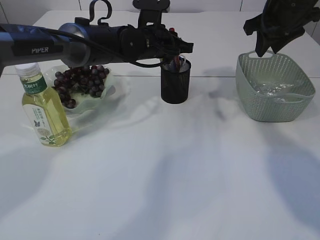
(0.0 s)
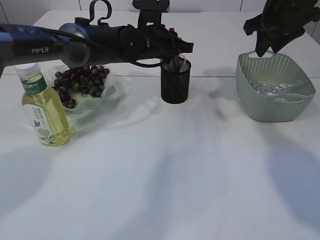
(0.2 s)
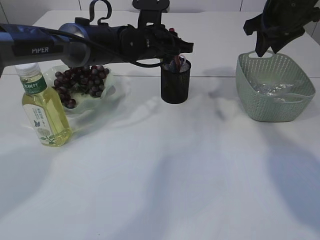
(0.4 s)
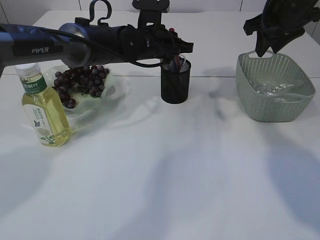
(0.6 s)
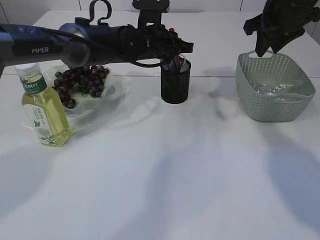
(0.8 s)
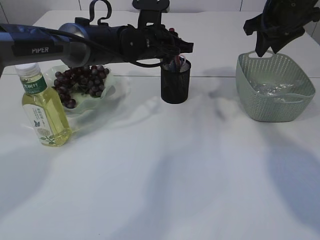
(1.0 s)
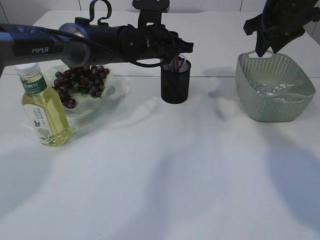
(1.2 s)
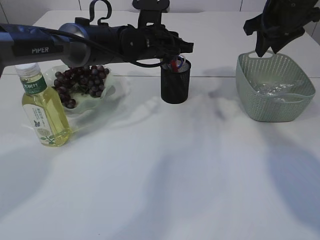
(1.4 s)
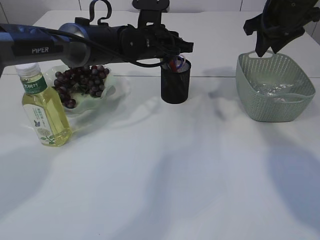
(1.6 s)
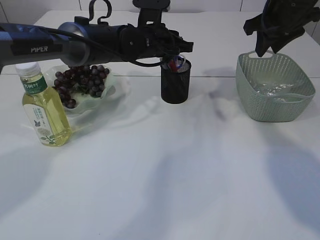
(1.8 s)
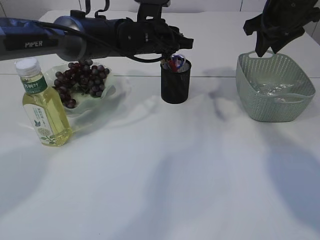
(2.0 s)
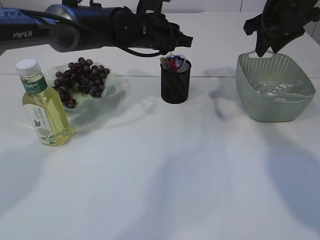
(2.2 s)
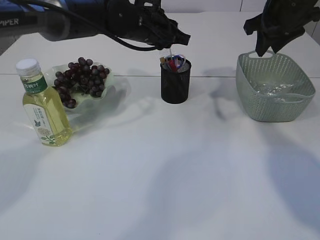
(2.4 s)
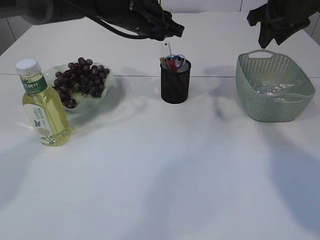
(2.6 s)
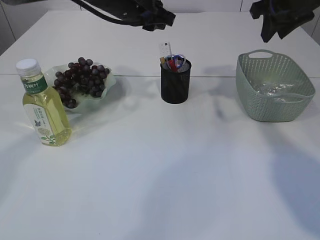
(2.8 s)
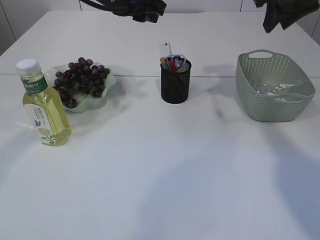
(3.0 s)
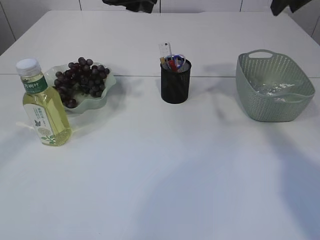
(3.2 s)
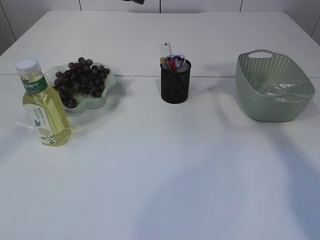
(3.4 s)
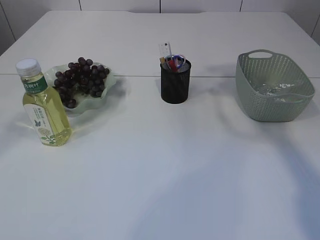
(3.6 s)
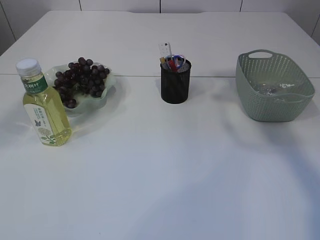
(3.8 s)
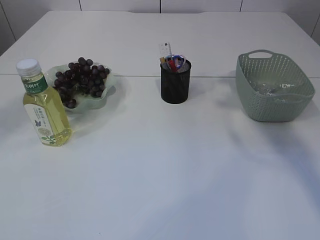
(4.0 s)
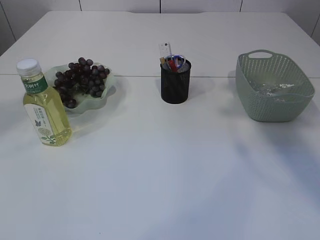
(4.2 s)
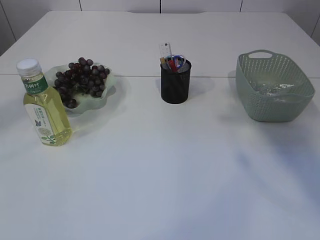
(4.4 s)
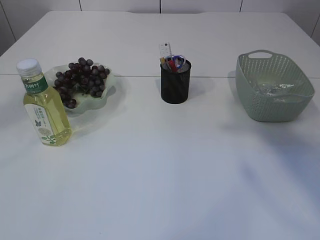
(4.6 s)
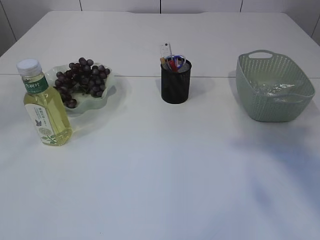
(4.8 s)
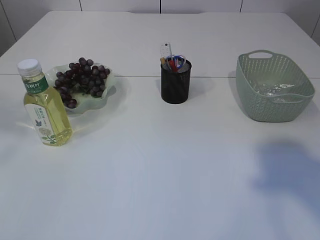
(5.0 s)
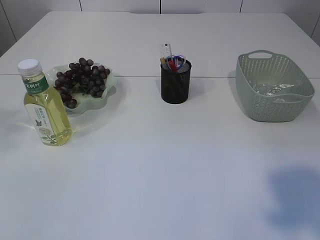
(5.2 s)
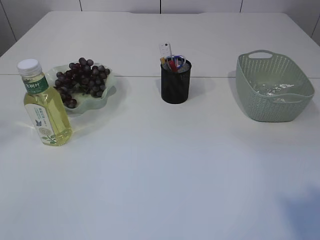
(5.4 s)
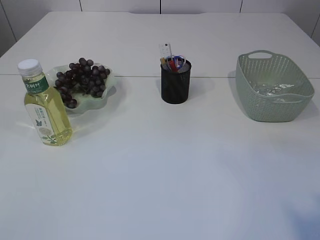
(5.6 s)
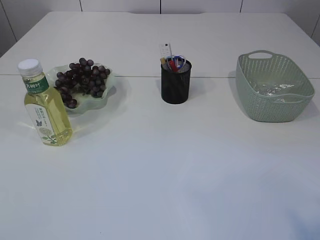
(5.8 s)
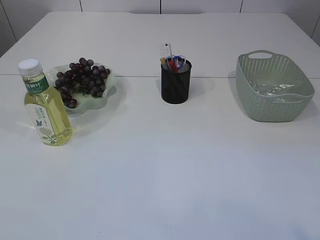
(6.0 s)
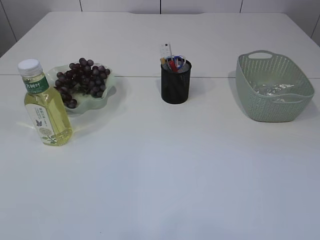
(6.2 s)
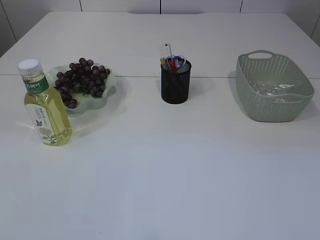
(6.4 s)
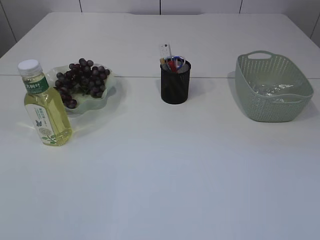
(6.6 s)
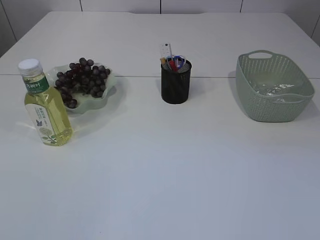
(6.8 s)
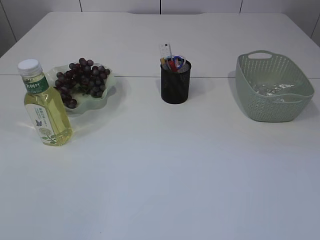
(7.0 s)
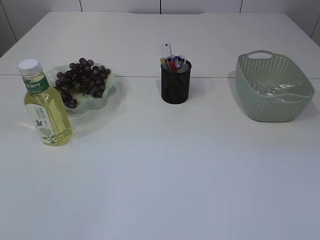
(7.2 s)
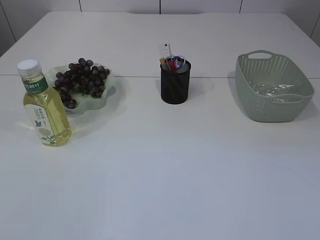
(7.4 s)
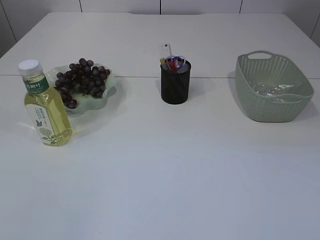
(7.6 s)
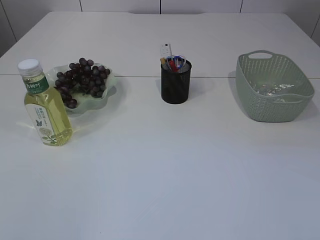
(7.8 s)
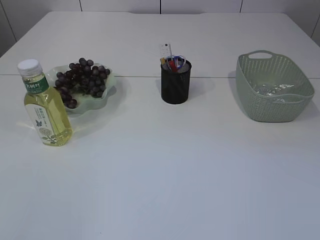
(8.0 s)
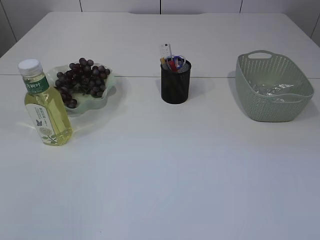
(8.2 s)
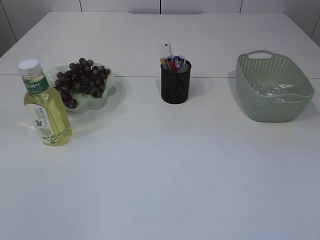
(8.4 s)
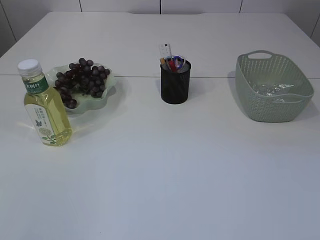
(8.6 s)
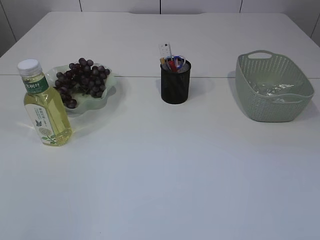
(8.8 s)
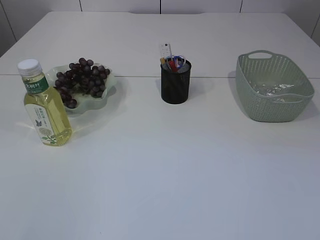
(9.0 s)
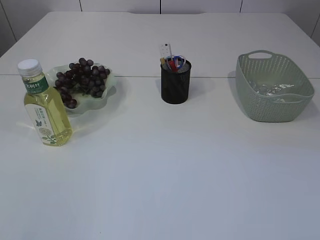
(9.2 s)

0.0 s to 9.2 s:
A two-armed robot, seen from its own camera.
Step, 0.0 to 2.4 s: place the red glue into the pen holder.
0.0 to 1.6 s: Both grippers stay about where they are.
1.6 to 3.0 s: The right gripper ends up about 5 cm from where it was. Meanwhile the left gripper heads upward, covering about 10 cm.
3.0 to 4.6 s: The left gripper heads upward, backward and to the left, covering roughly 25 cm. The right gripper heads backward and upward, covering roughly 30 cm.
4.6 to 6.2 s: The right gripper is displaced backward and downward by about 25 cm. Meanwhile the left gripper travels backward and to the left by about 30 cm.

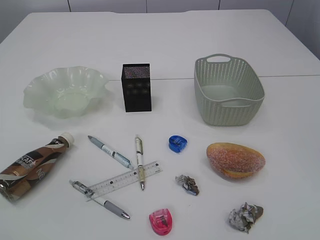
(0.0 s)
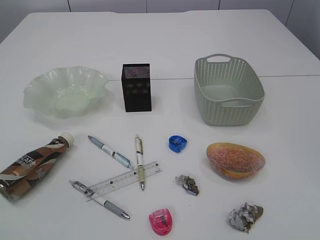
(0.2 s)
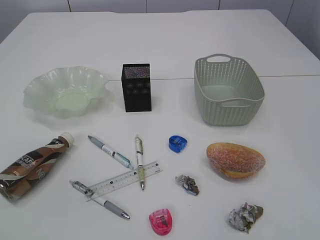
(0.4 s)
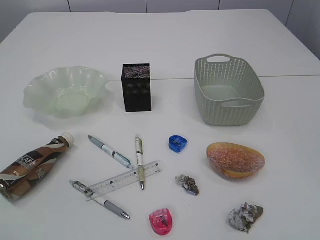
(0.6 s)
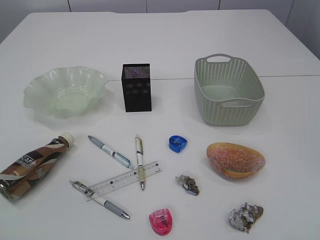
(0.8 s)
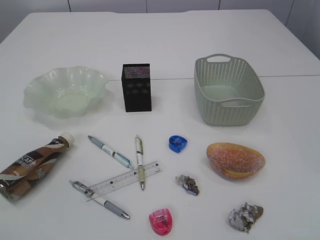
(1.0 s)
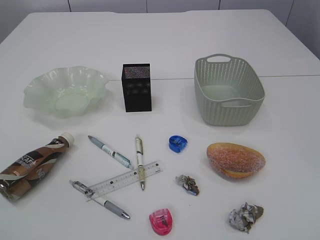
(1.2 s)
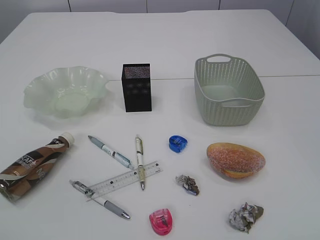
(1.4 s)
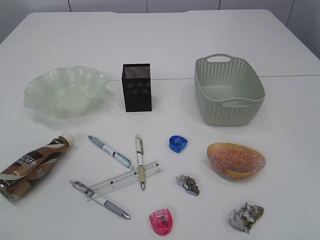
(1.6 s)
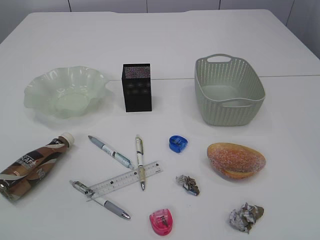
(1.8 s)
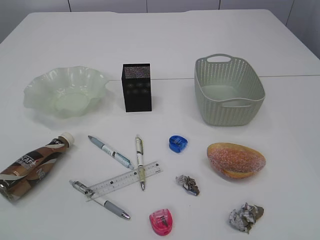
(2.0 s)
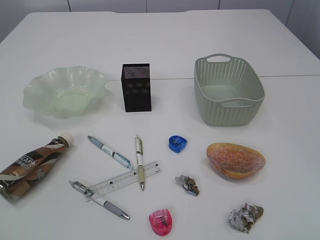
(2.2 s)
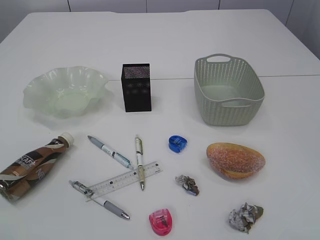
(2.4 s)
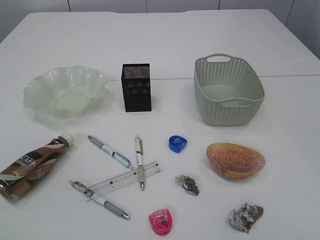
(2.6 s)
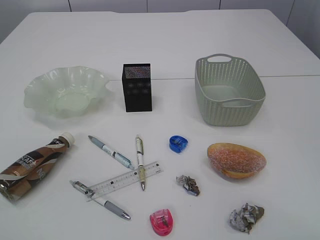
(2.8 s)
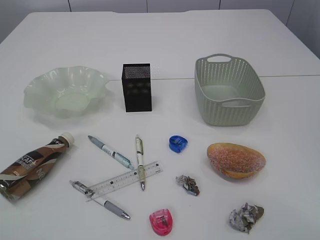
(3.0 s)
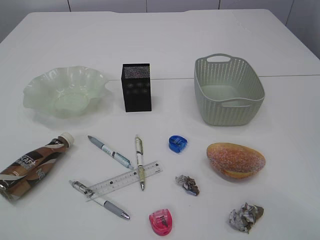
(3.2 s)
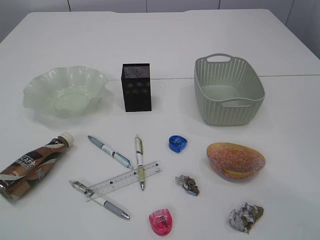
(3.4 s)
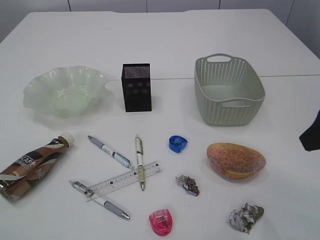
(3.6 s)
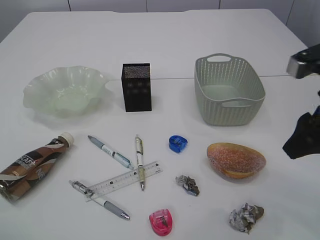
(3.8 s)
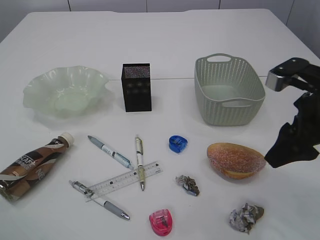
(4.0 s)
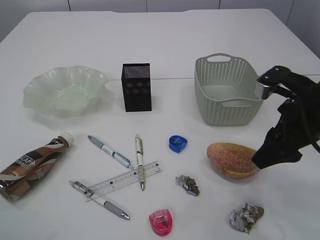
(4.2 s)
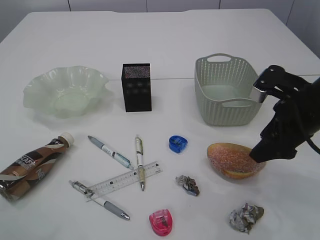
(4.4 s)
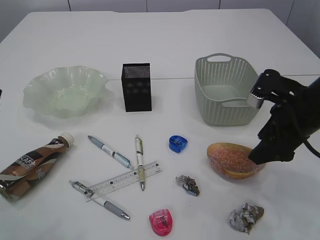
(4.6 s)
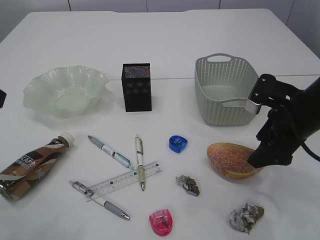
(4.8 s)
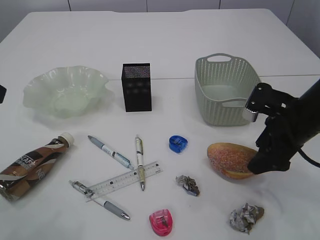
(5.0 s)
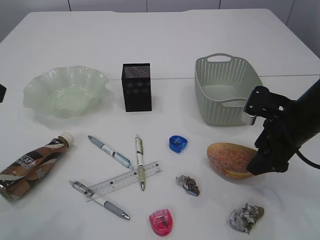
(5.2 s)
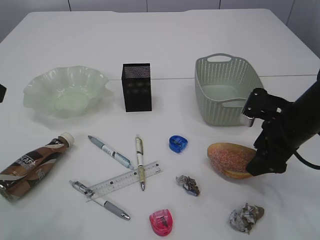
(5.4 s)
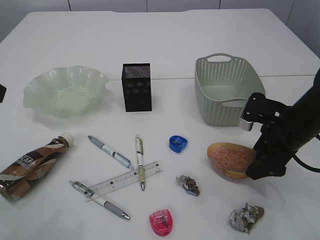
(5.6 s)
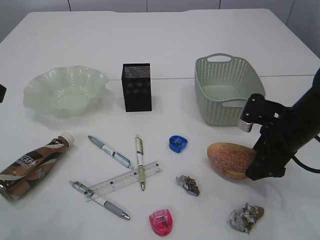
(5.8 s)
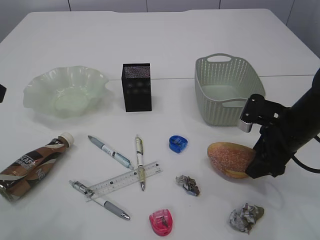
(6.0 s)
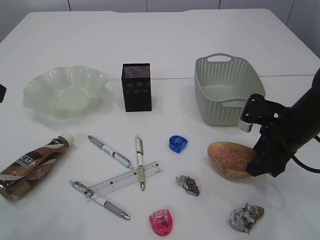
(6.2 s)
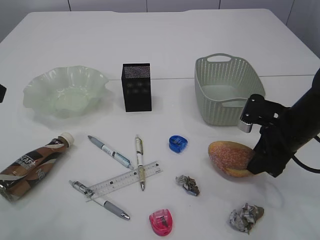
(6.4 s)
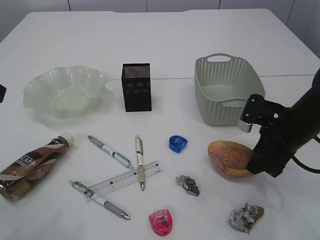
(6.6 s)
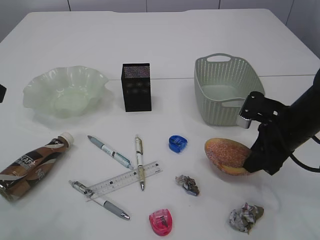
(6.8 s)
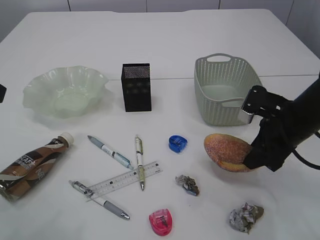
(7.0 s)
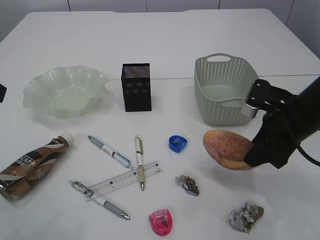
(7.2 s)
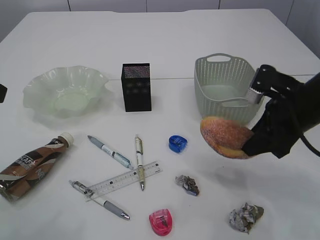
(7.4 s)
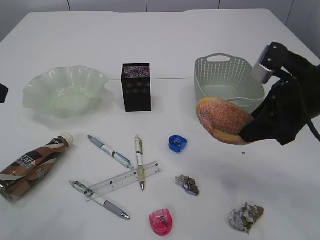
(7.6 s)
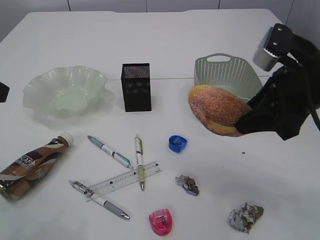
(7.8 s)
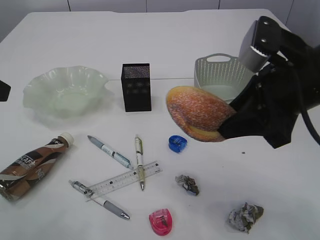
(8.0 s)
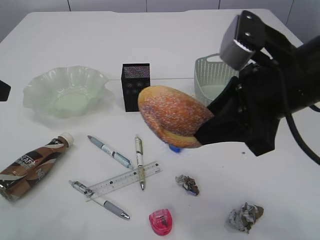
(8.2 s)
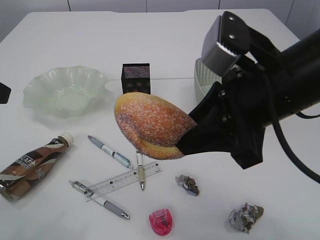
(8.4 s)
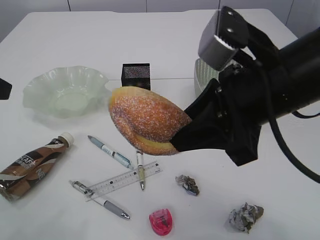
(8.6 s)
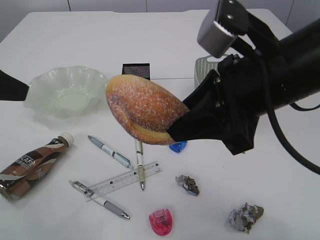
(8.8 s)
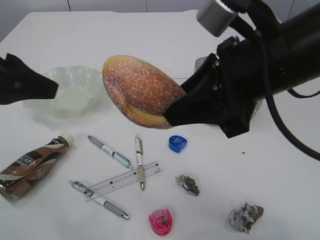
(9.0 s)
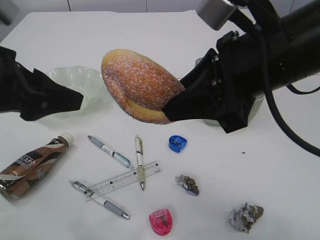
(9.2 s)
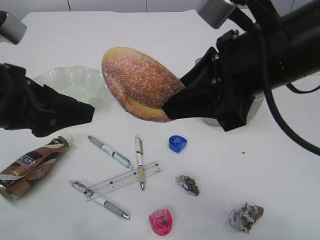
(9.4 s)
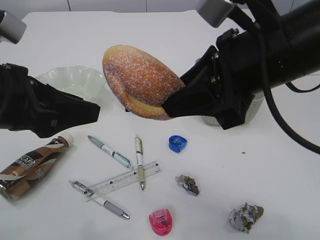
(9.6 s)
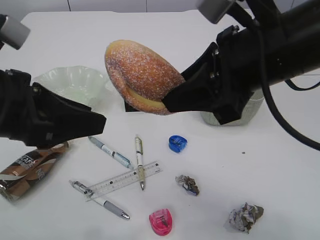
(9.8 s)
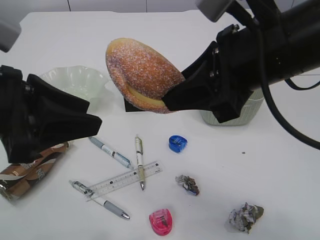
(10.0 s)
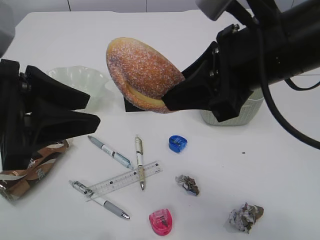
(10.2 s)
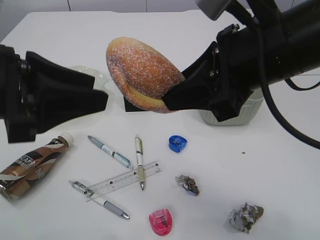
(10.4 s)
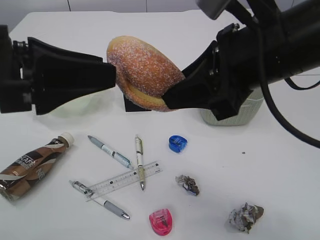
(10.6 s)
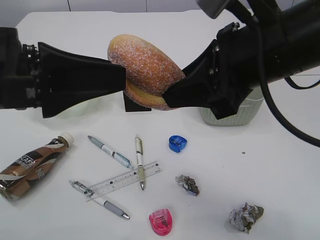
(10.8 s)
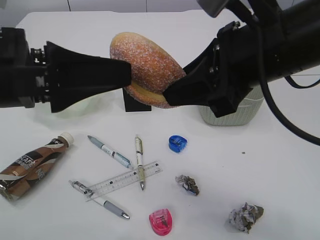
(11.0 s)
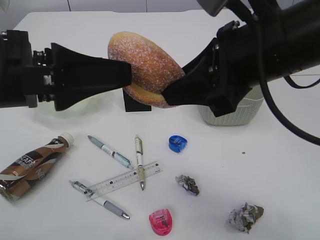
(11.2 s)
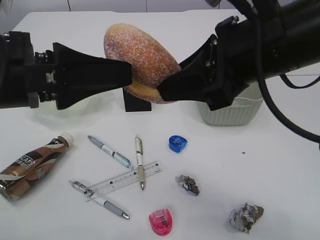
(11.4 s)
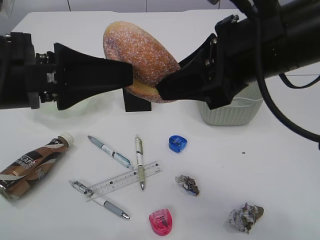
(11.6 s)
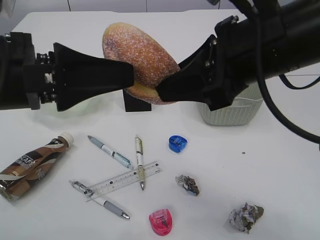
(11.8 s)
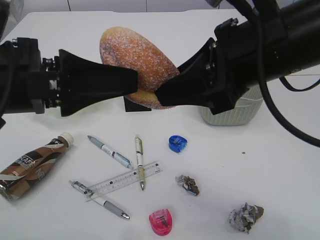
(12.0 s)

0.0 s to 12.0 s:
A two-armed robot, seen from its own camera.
3.0 to 4.4 s: The right gripper moves forward and downward, some 25 cm.
4.4 to 6.0 s: The right gripper shifts some 5 cm downward.
6.0 to 7.6 s: The right gripper moves upward, approximately 10 cm, and closes its fingers.
7.6 to 9.0 s: The right gripper travels to the left, upward and backward by approximately 15 cm.
9.0 to 10.4 s: The left gripper shifts by approximately 5 cm.
10.4 to 12.0 s: The left gripper opens.

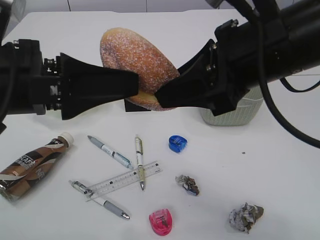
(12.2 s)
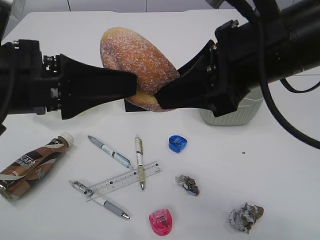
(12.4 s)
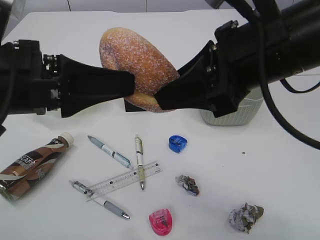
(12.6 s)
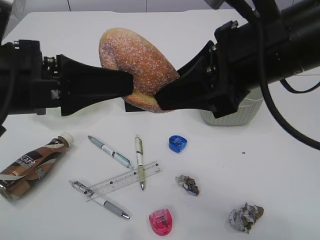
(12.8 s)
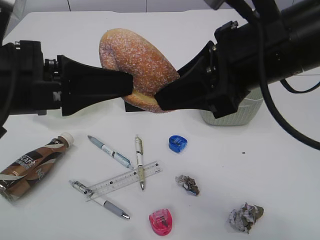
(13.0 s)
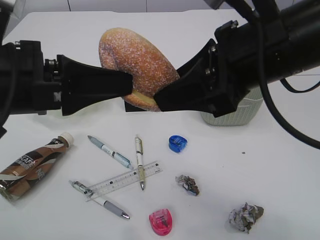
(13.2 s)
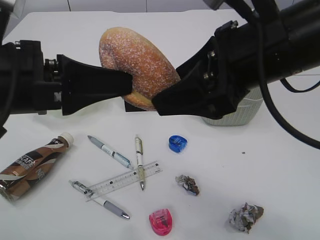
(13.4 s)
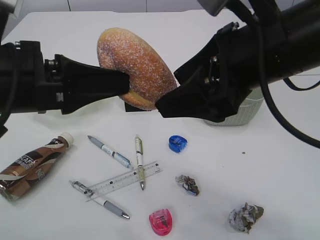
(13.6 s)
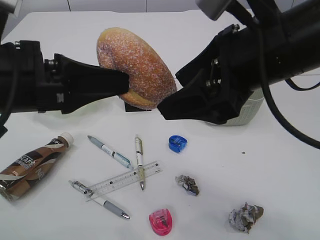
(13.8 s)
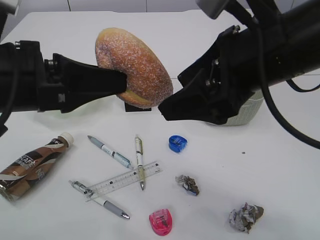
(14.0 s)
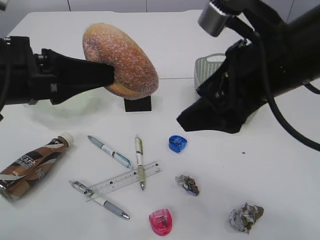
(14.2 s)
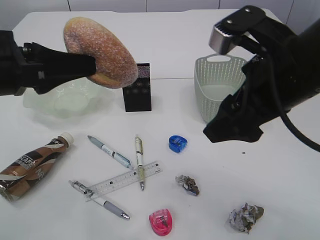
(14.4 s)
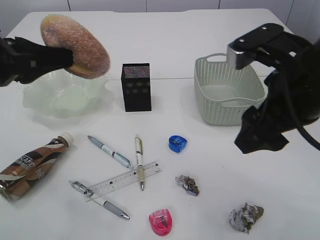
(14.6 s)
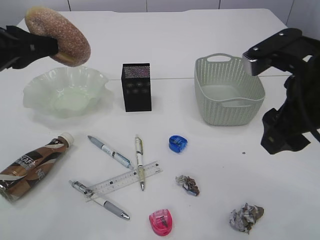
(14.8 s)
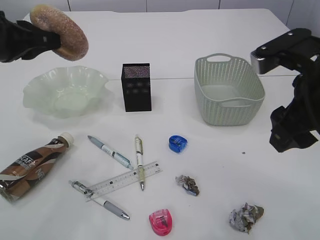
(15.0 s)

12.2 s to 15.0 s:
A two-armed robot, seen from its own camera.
Step, 12.2 to 14.2 s: Hand over the bread.
12.2 to 13.6 s: The left gripper closes its fingers. Meanwhile the right gripper opens its fingers.
13.6 to 15.0 s: The right gripper is displaced to the right by approximately 10 cm. Meanwhile the left gripper travels forward and to the left by roughly 15 cm.
